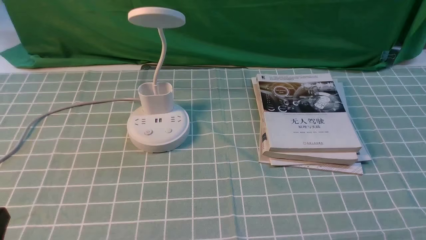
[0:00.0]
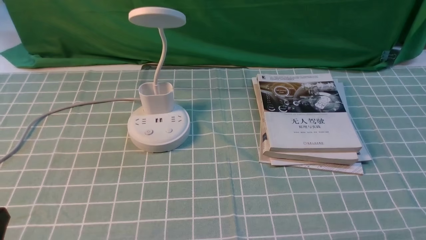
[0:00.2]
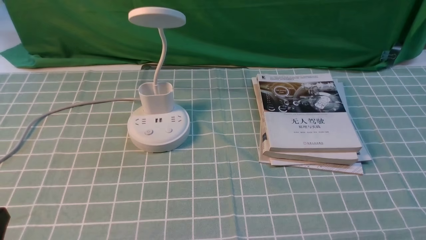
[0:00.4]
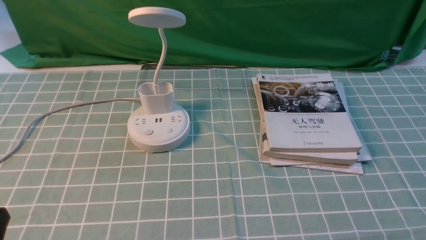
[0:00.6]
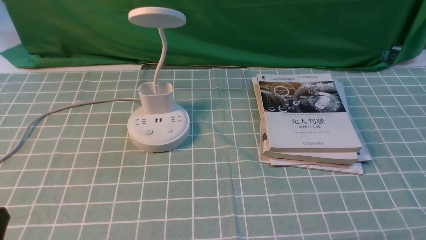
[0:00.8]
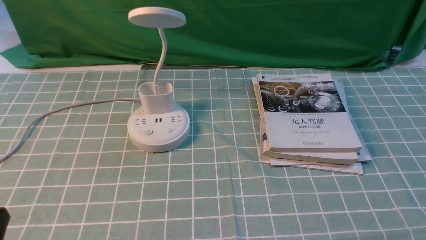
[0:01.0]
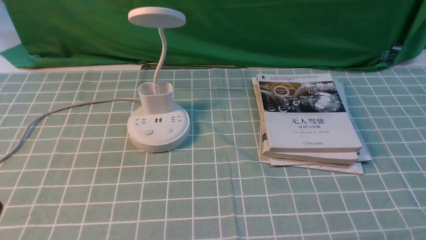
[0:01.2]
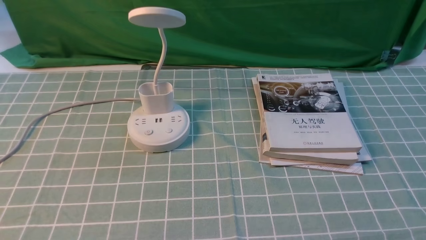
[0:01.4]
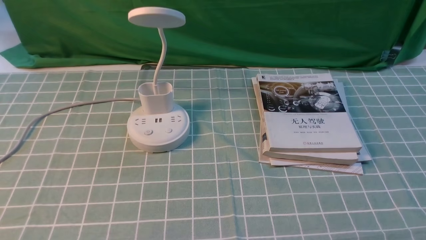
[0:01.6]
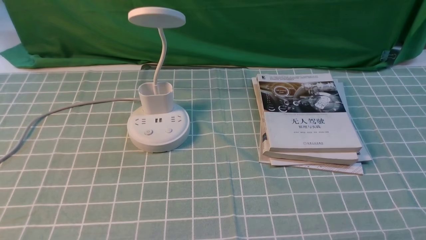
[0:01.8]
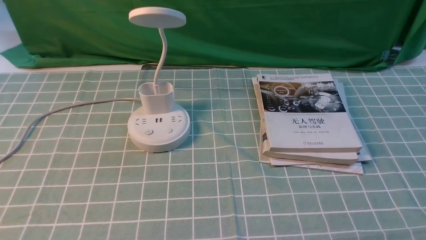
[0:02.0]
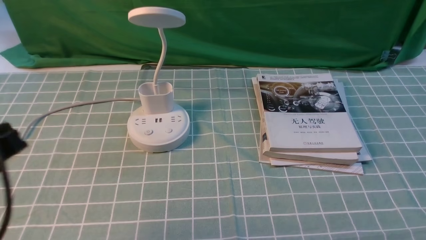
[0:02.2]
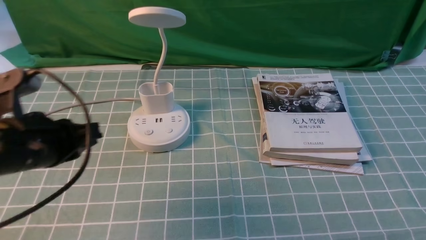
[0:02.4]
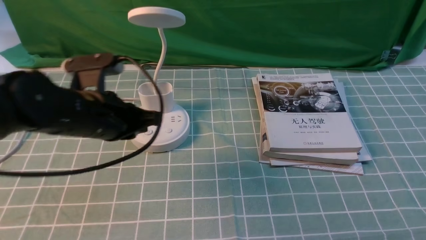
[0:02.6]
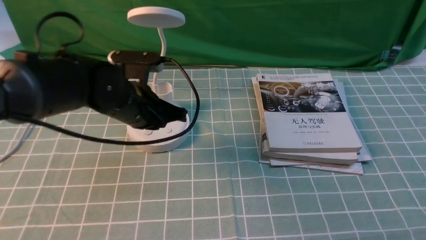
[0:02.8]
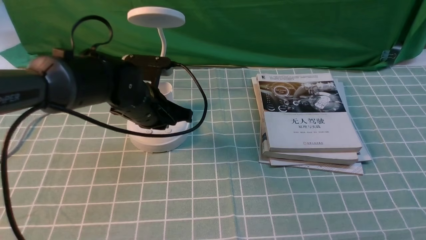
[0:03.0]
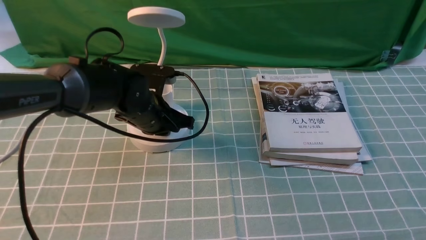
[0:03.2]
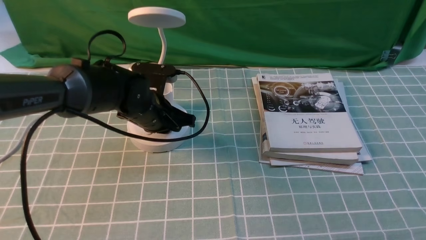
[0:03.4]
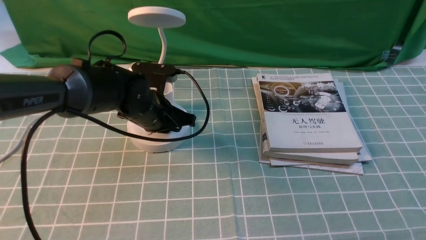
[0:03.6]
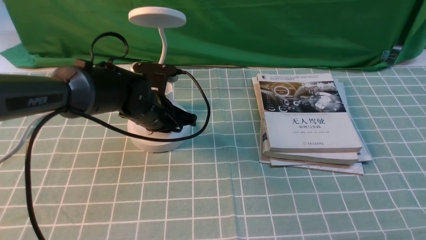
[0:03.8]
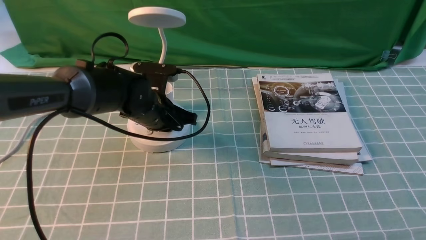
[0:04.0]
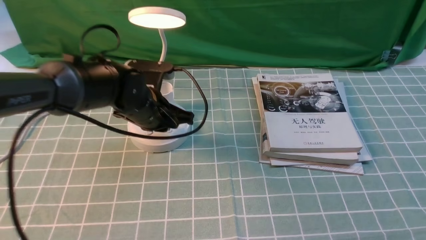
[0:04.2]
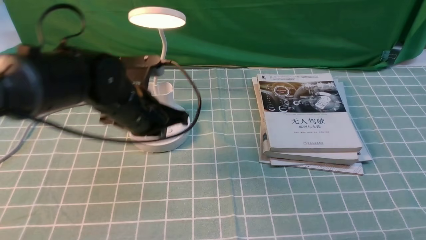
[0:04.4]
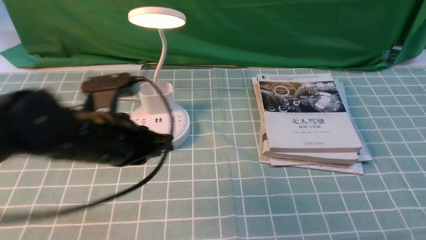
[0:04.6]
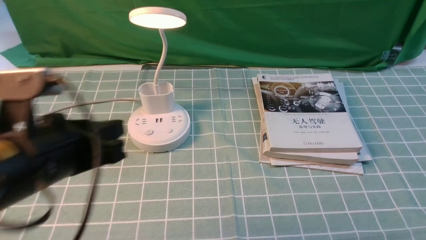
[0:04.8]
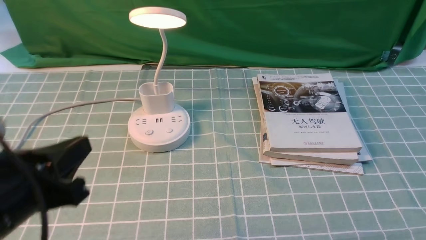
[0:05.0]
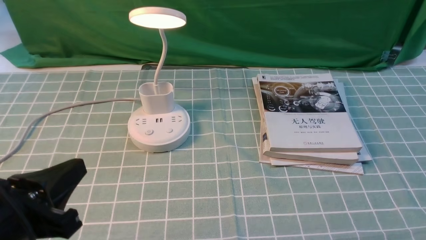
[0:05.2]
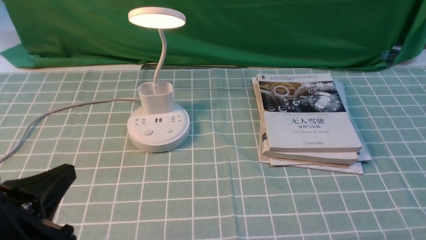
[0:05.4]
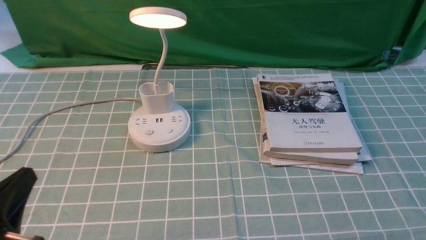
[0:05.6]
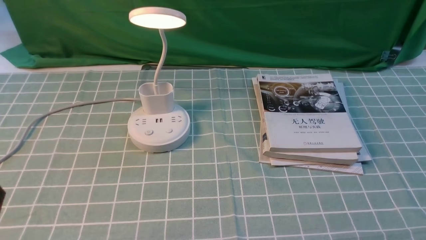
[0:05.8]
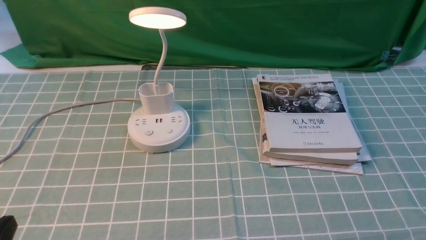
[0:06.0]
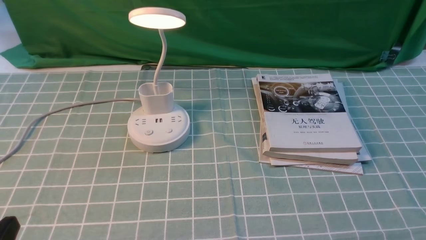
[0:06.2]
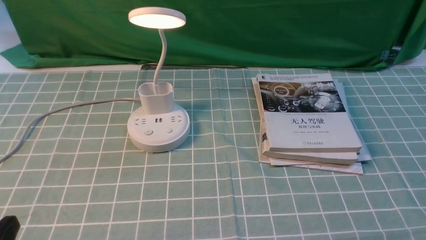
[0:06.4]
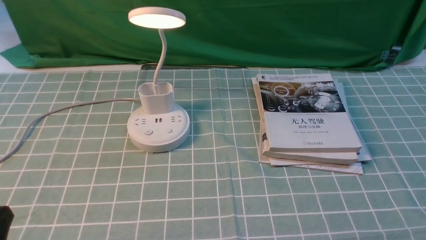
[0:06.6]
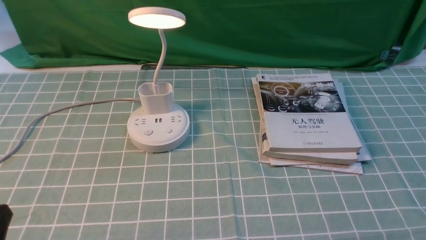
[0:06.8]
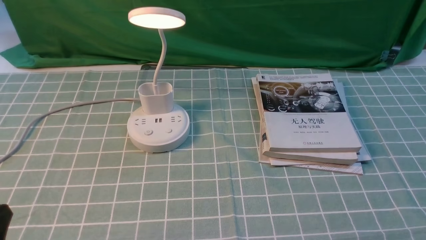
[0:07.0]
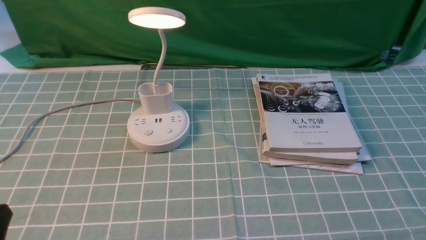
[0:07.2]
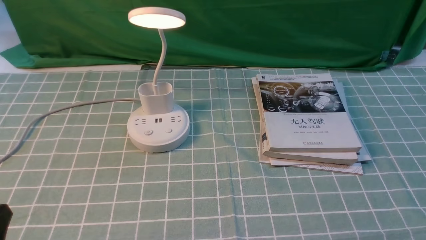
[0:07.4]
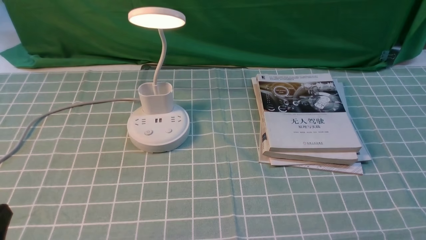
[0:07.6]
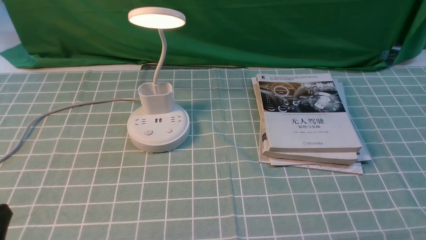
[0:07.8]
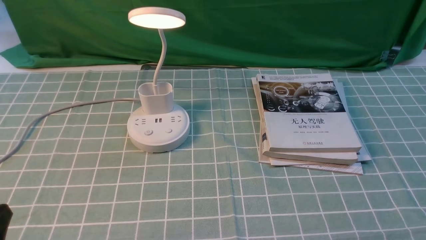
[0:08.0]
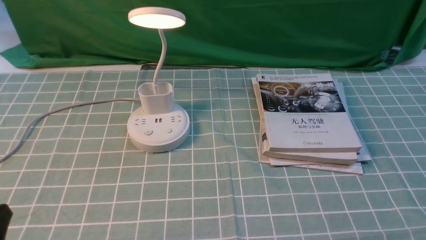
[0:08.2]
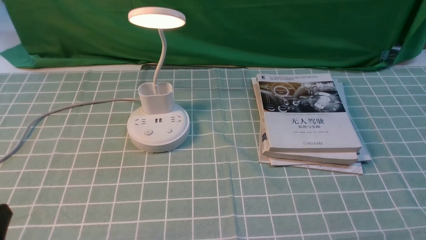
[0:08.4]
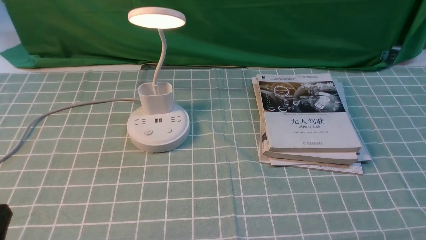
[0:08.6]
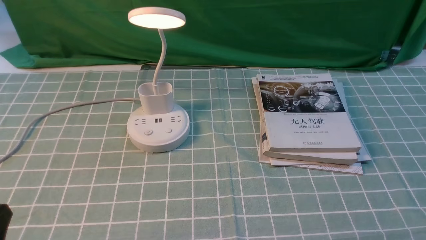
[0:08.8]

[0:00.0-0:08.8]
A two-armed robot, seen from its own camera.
Step, 0:00.0 to 0:04.2: use the left arm to press the button switch on the lamp holder.
0:01.4 to 0:03.0: The left gripper moves forward and to the right, some 35 cm, and closes up.
0:03.0 to 0:04.4: The left gripper shifts roughly 5 cm backward, and opens up.
0:04.4 to 0:05.8: The left gripper shifts approximately 30 cm backward and to the left.
0:07.4 to 0:08.8: Both grippers stay about where they are.

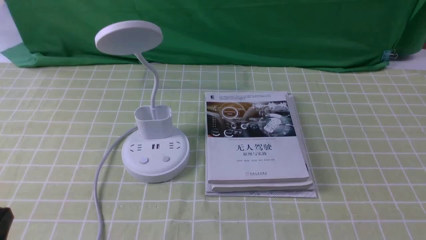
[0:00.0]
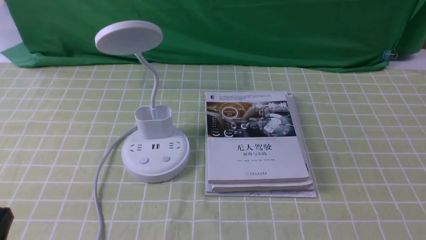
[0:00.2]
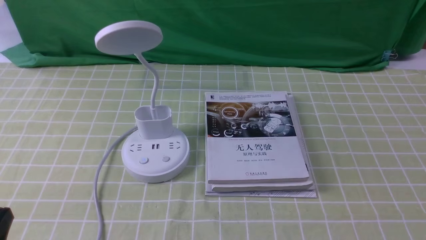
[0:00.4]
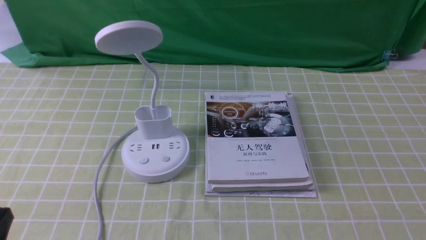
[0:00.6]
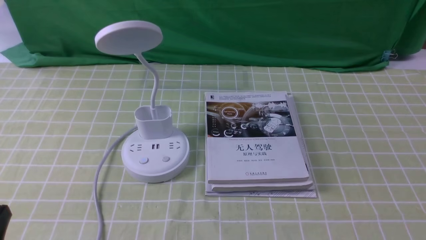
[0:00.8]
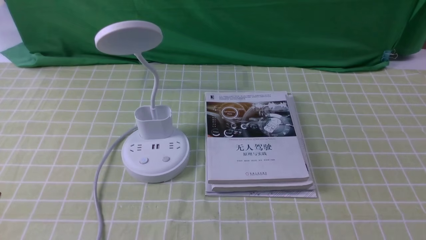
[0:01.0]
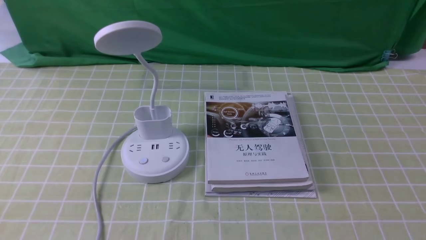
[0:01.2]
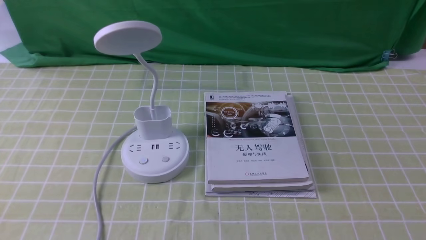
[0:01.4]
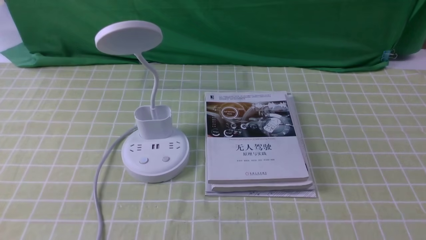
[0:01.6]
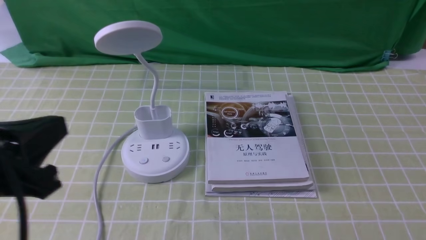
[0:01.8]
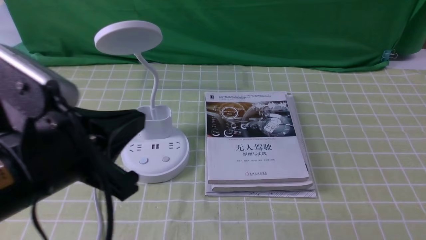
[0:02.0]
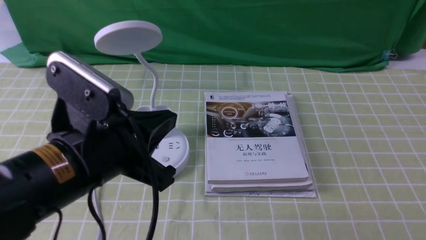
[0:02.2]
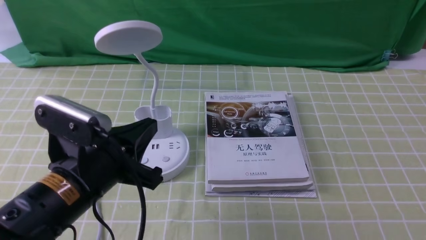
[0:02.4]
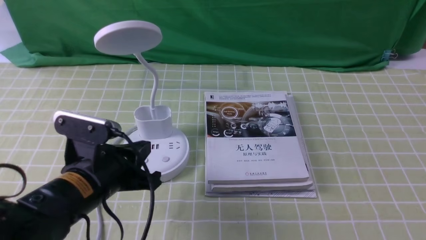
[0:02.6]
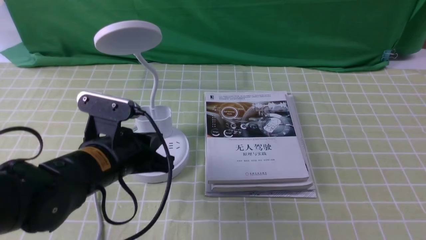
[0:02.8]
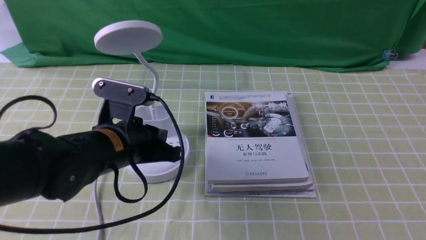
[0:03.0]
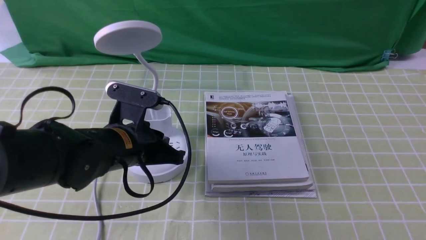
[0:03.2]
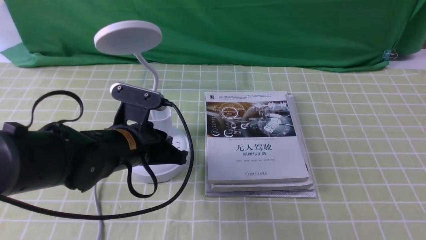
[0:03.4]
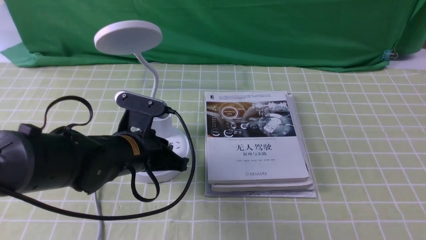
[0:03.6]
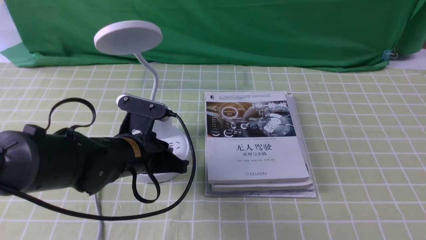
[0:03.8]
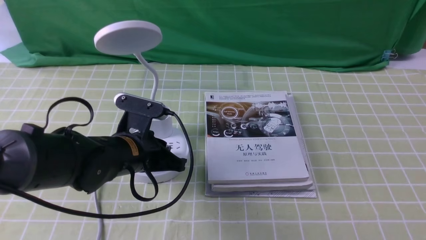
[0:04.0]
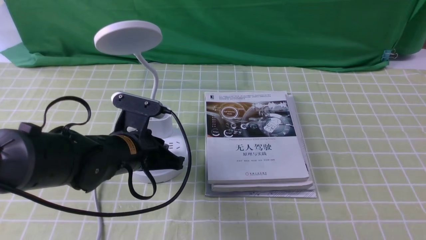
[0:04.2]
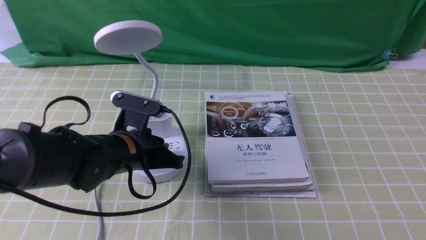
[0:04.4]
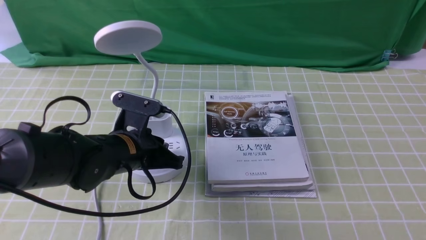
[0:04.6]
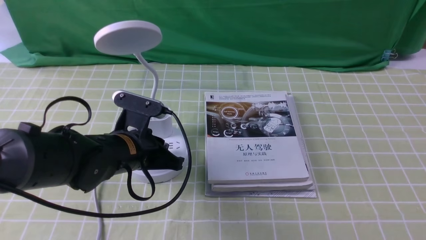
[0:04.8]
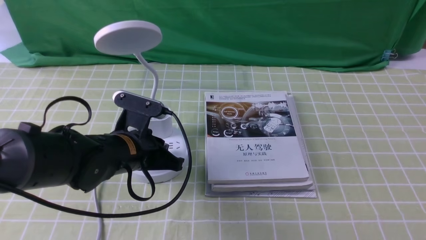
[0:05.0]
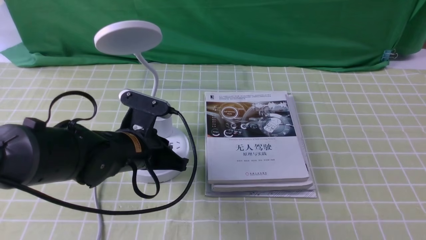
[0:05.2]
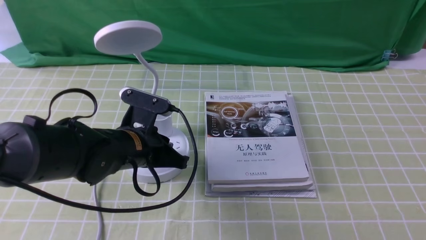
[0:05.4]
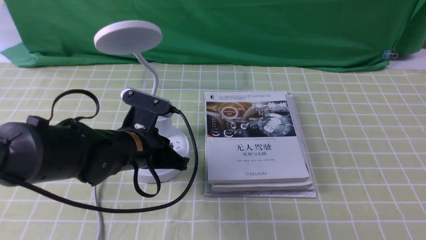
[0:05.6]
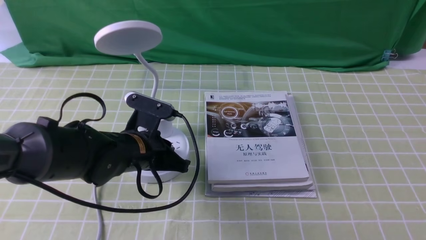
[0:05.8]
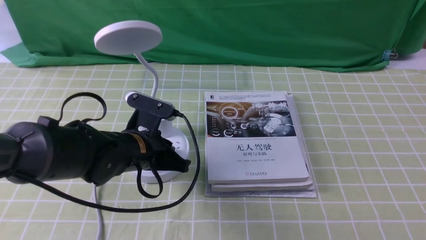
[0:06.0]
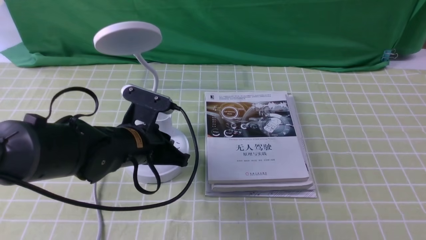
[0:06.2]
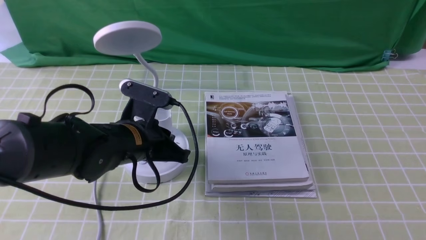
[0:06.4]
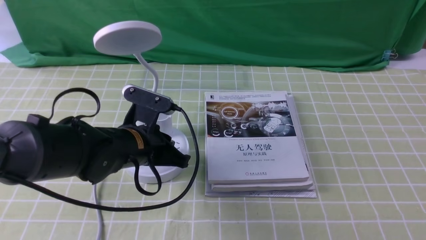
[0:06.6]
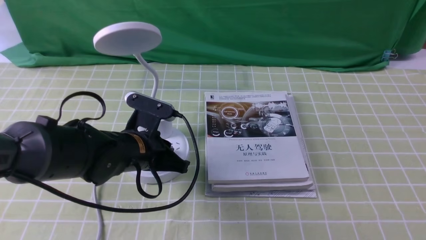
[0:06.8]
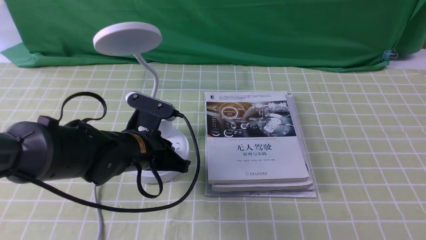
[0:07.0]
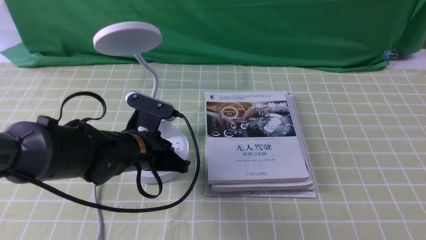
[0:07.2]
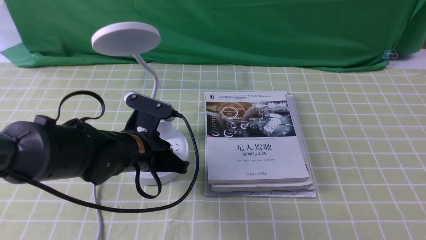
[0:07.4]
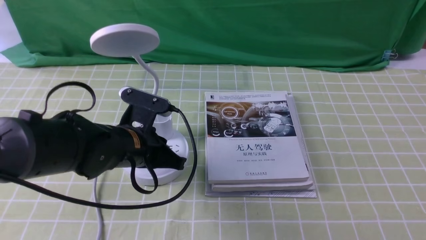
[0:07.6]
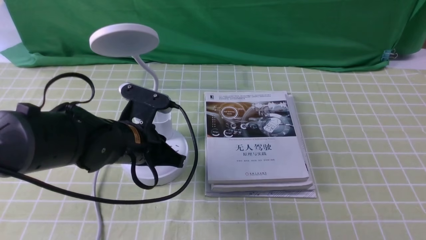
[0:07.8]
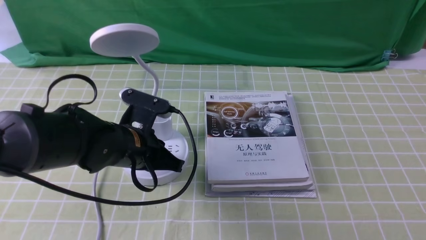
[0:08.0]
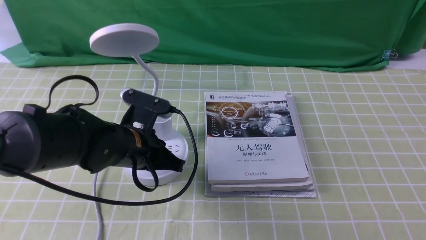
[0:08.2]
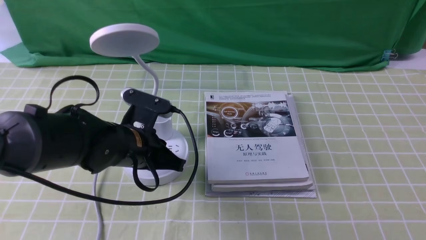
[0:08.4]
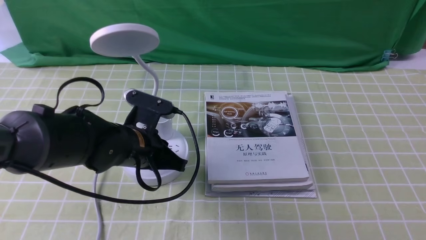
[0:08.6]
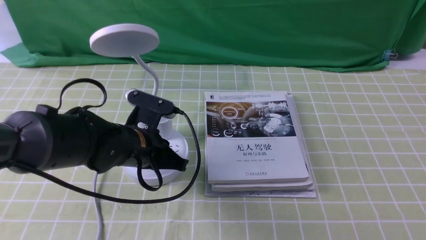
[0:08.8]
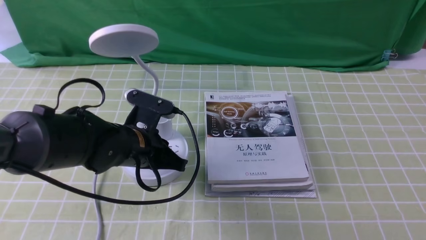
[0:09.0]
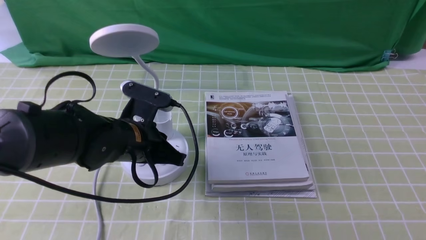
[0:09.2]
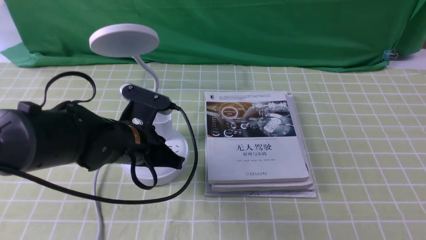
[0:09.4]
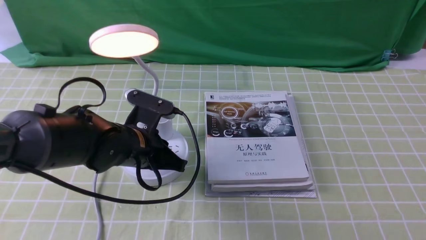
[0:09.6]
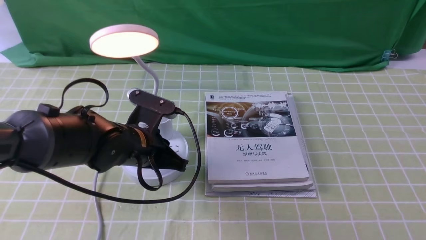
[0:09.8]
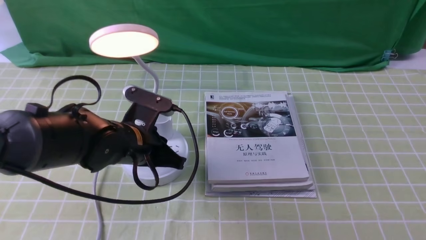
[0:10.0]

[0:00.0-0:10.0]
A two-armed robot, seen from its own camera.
Step, 0:00.0 to 0:09.8: use the left arm to press the button switch on the lamp holder.
0:01.4 to 0:02.8: The left gripper shifts some 20 cm forward and to the right.
0:02.8 to 0:04.2: The left gripper is displaced forward by about 5 cm.
0:04.2 to 0:05.8: The two grippers keep their place.
0:05.8 to 0:07.2: Both grippers stay put.
0:07.2 to 0:08.6: The grippers make only small movements.
0:08.6 to 0:10.0: Neither gripper changes place.
